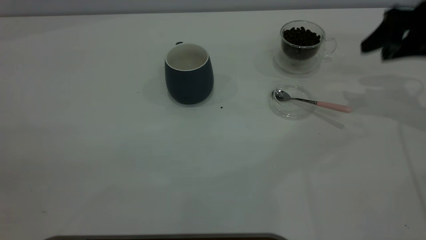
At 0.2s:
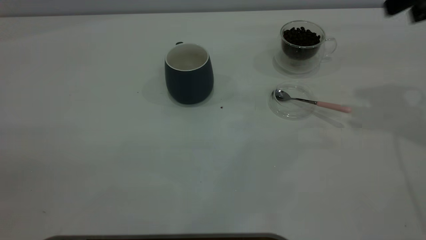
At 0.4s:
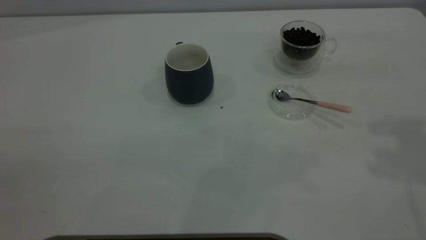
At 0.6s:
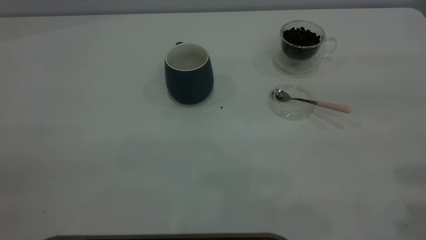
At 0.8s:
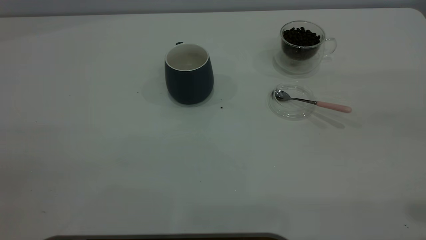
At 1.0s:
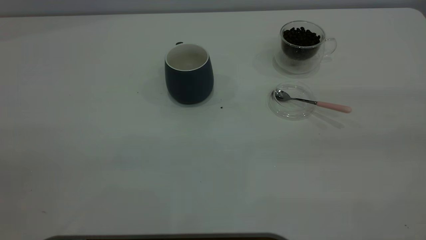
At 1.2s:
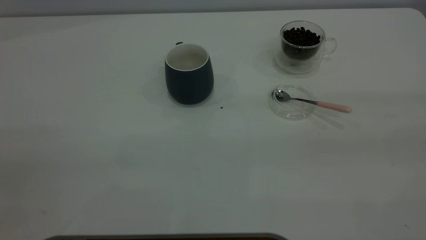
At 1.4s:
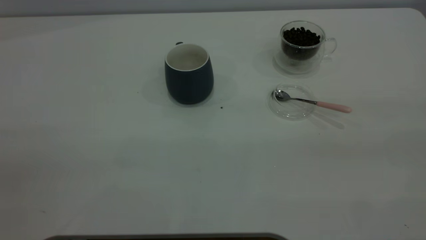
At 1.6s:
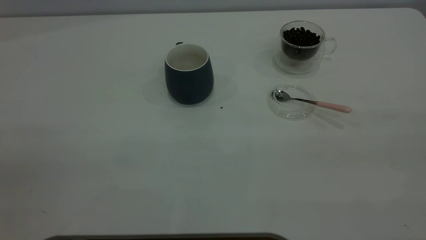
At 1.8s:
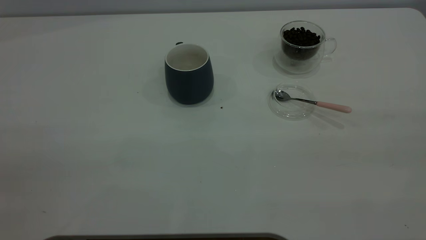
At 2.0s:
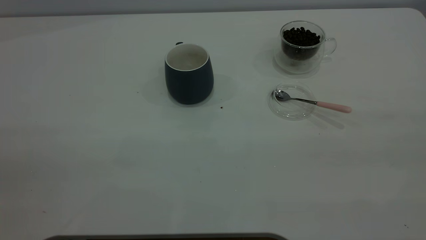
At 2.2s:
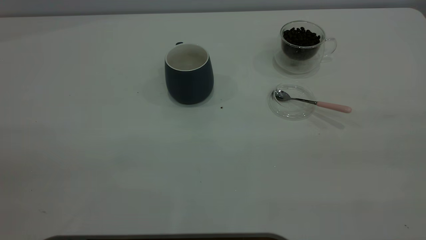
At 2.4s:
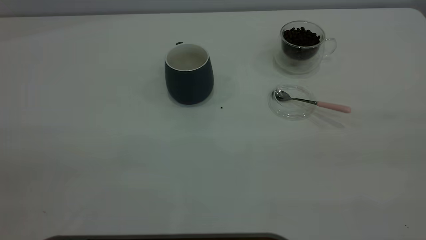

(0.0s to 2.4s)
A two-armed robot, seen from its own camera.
Task of the whole recording: the left gripper place the grey cup in the center of the table, the right gripper take the pink spoon from the cup lid and scoop out the coffee beans from the coffee cup and put them into the grey cup, the right gripper put the spoon back into the cup lid.
0.0s - 1.2s: The right gripper heads backward and upward, covering about 35 cm.
